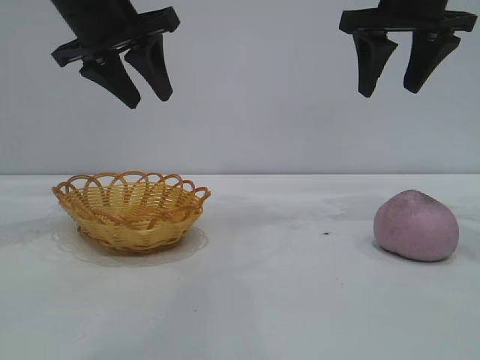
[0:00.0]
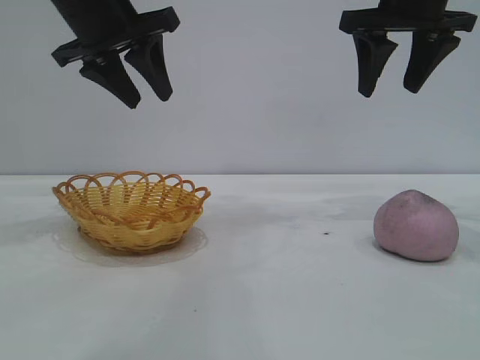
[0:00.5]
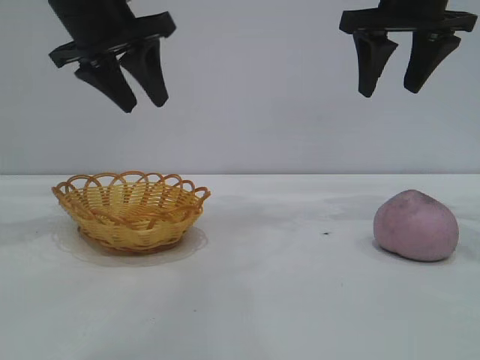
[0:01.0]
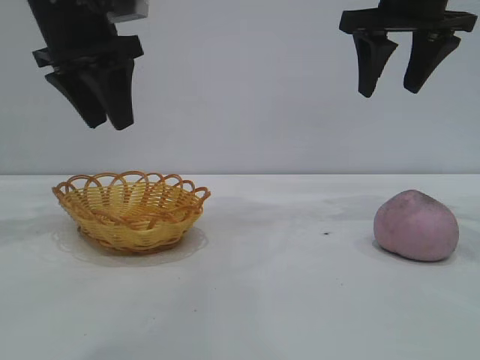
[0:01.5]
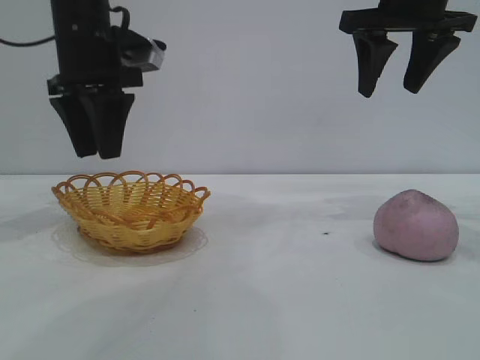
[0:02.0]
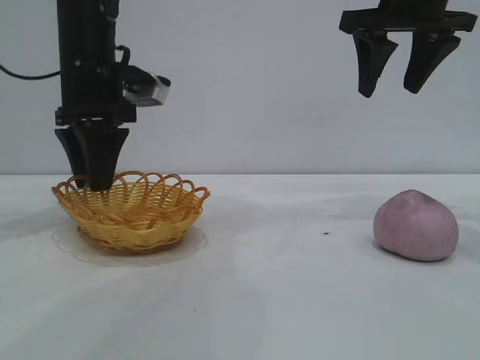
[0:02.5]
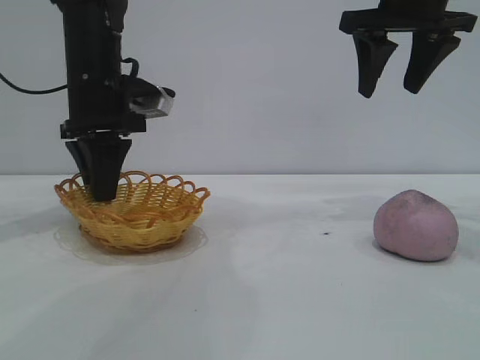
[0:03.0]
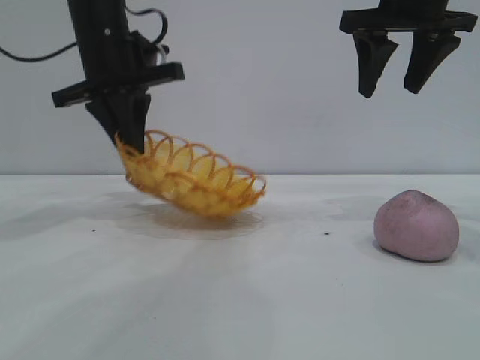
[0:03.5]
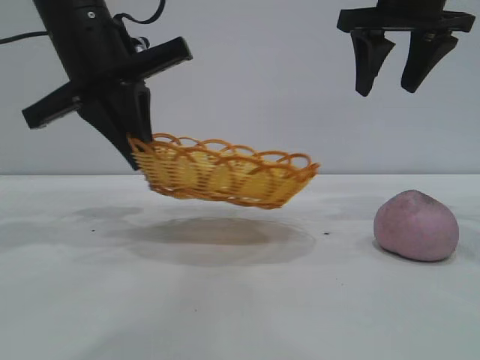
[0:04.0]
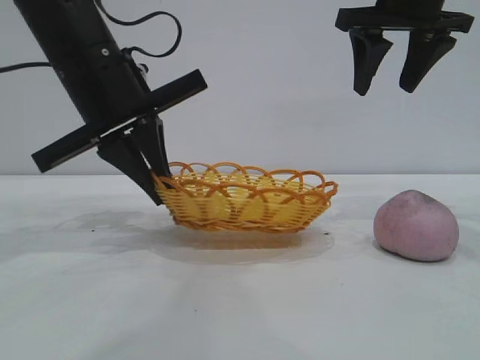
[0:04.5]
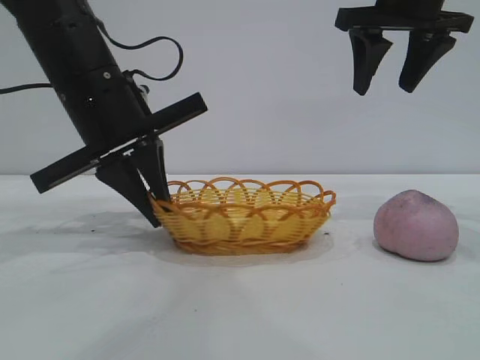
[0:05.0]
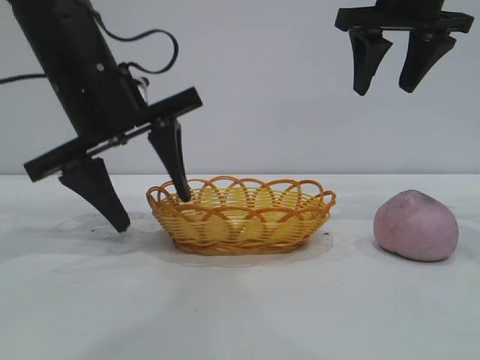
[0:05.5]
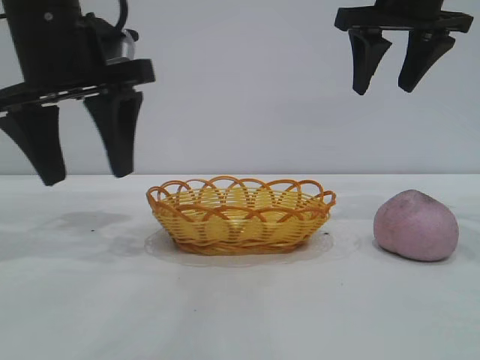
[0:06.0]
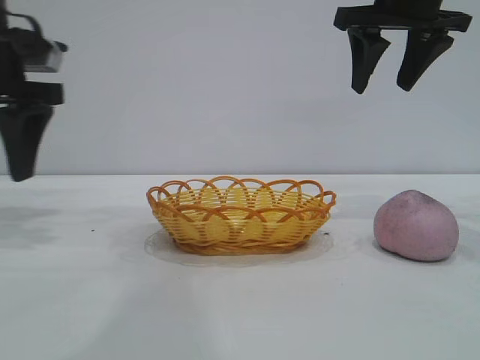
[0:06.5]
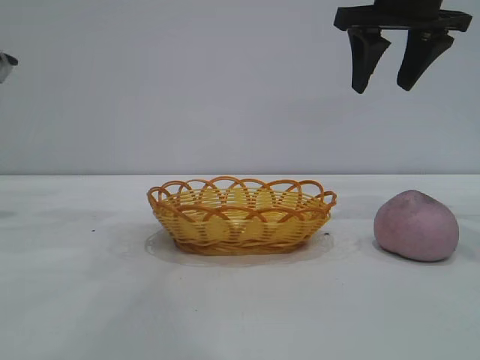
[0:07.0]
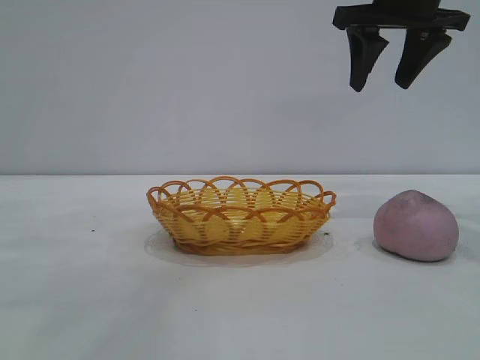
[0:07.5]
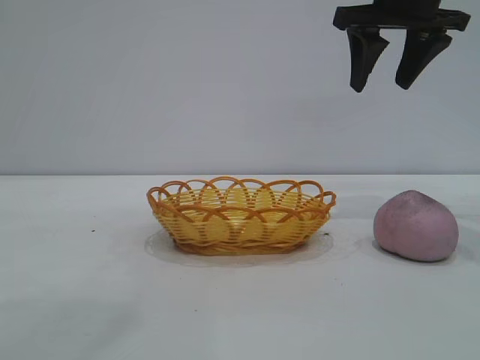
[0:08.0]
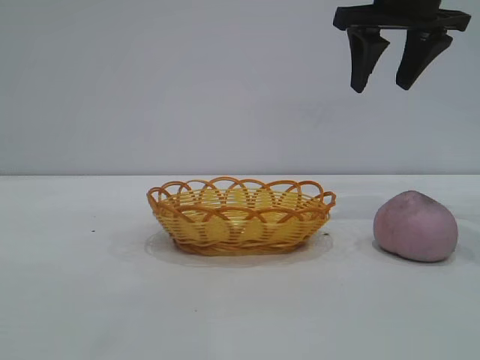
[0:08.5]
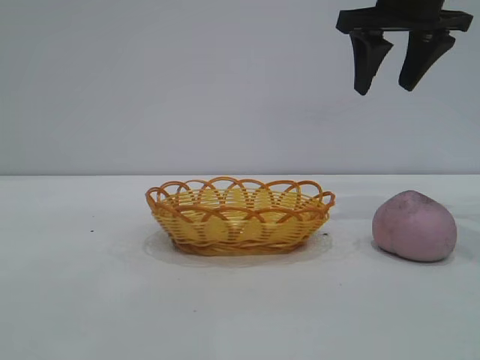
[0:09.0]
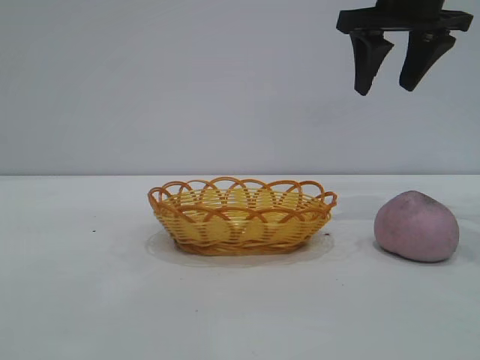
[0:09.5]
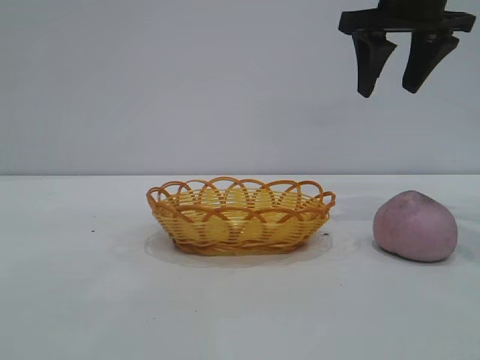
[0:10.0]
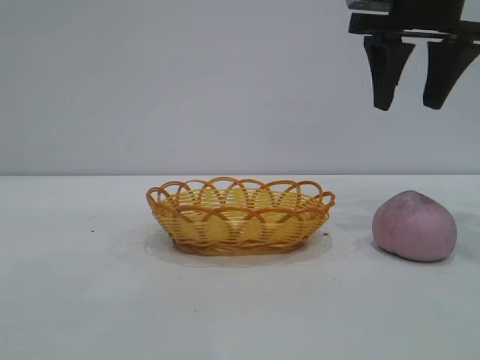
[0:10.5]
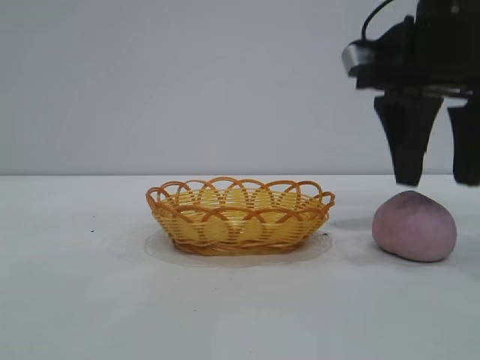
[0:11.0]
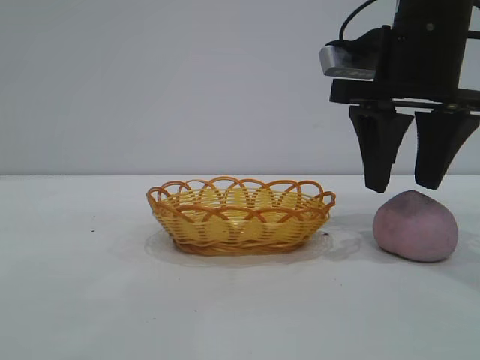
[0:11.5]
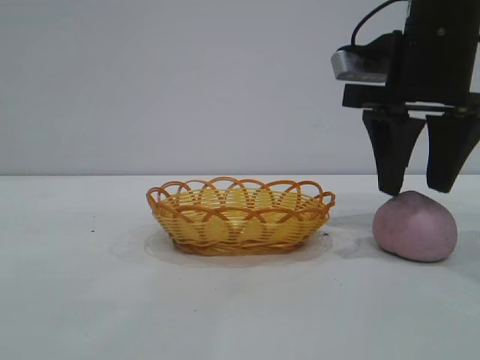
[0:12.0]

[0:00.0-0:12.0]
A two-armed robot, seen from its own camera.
Task of the whole recording: pick up the peach and put it into the basket.
Step, 0:00.0 to 0:05.5: Move the basket to the center of view.

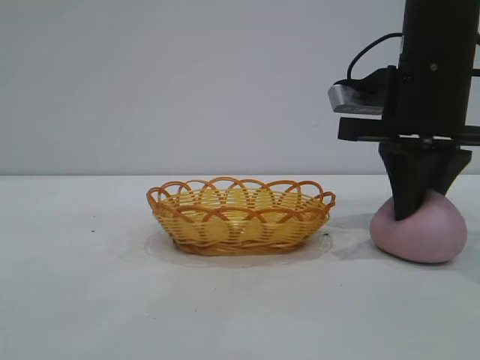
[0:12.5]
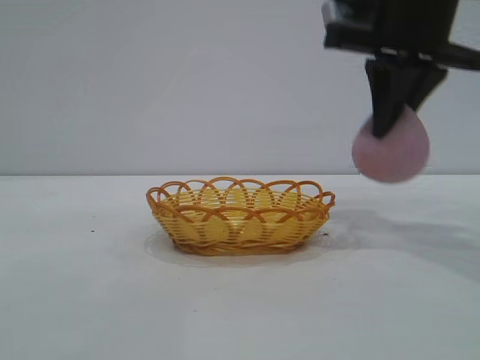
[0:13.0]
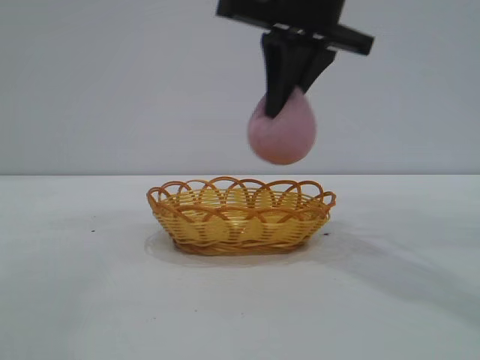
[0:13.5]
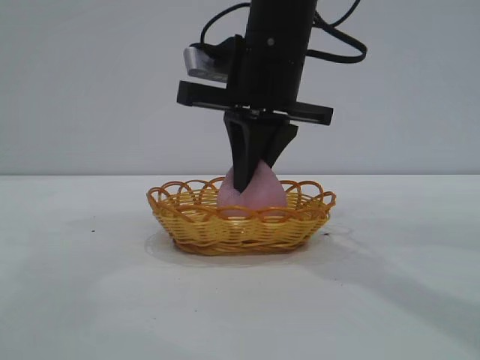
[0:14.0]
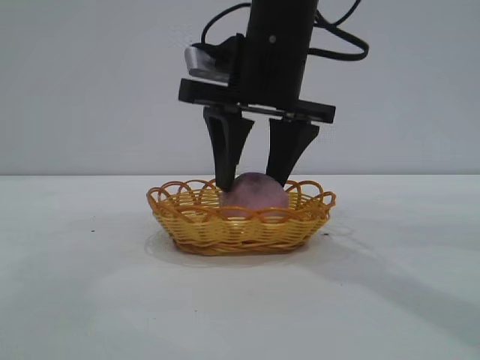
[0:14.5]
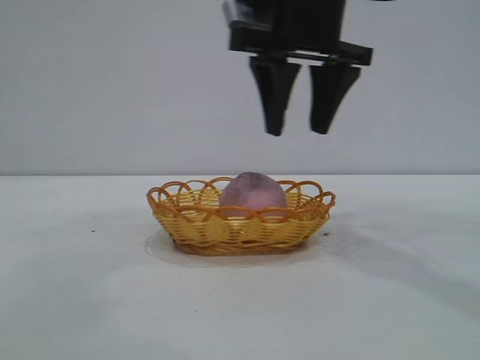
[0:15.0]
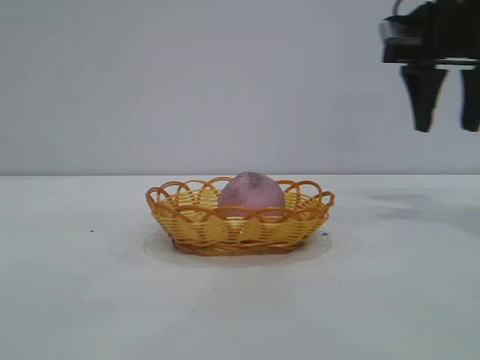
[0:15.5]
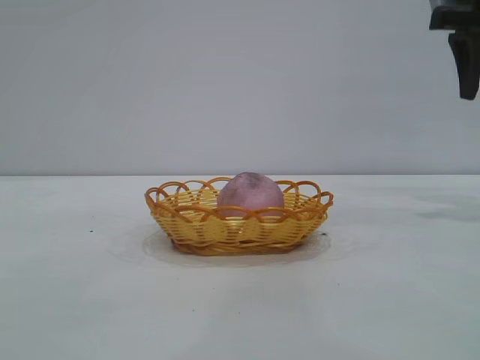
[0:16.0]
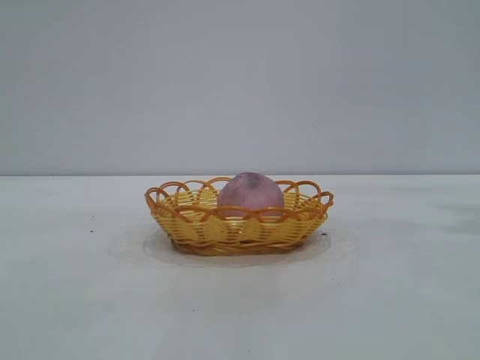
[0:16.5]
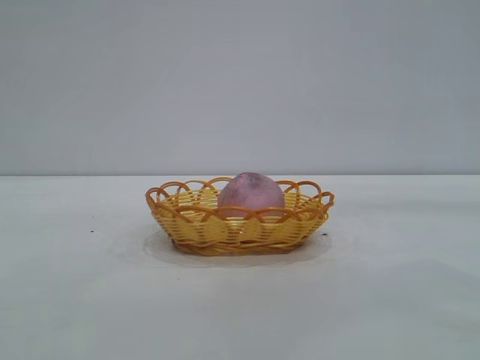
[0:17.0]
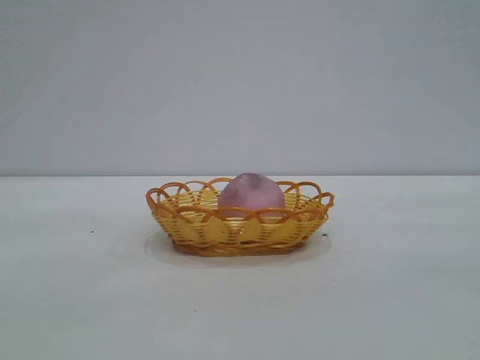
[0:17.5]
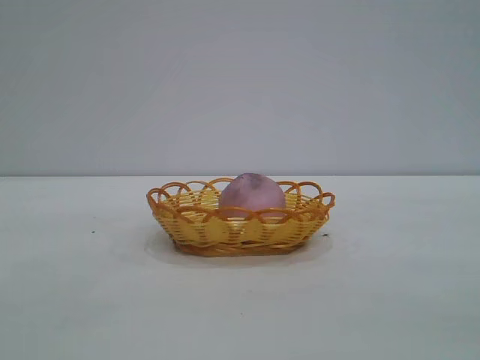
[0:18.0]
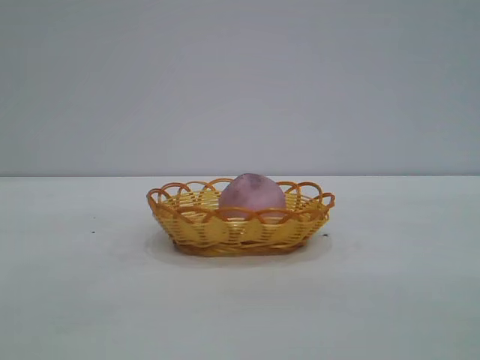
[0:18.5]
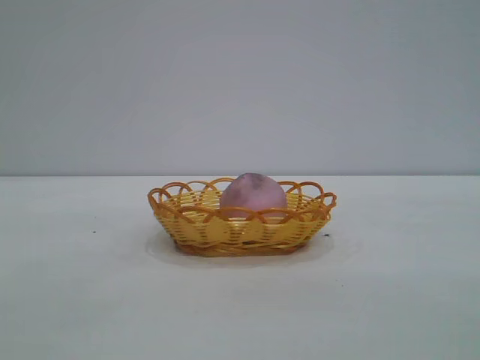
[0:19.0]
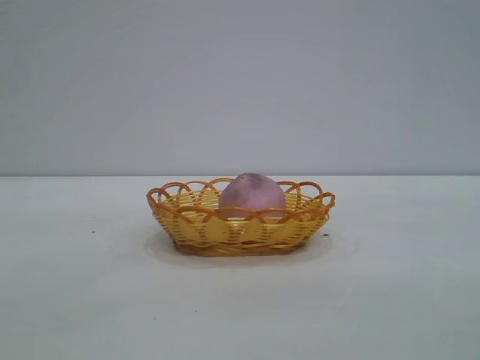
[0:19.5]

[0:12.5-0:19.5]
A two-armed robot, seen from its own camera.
Task of the whole recording: pick up the peach and put it into the basket.
Step, 0:13.5 to 0:14.5: place the peach into the basket.
